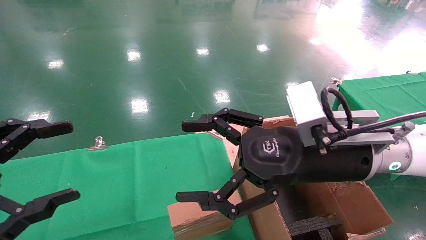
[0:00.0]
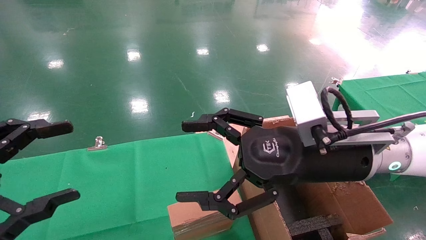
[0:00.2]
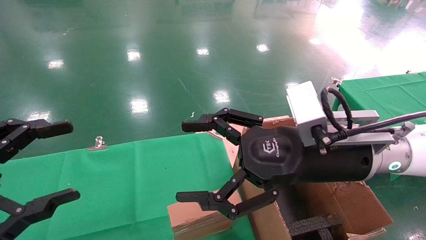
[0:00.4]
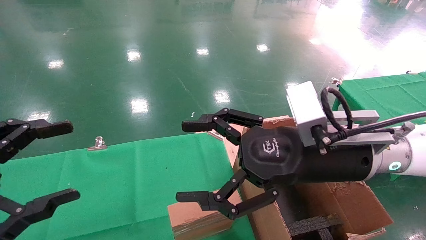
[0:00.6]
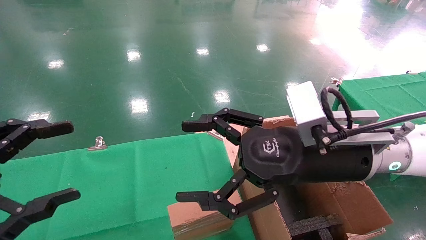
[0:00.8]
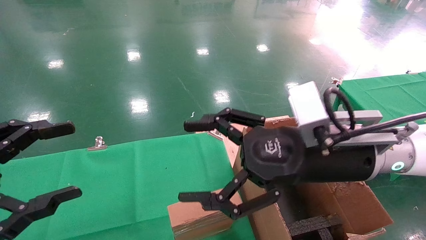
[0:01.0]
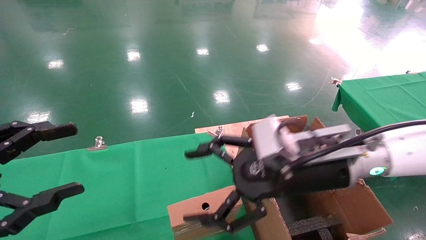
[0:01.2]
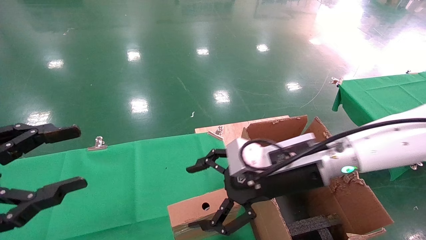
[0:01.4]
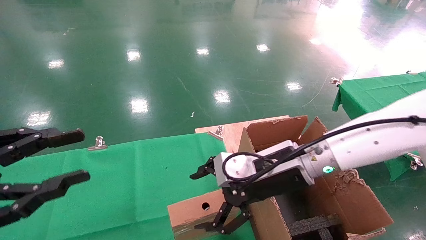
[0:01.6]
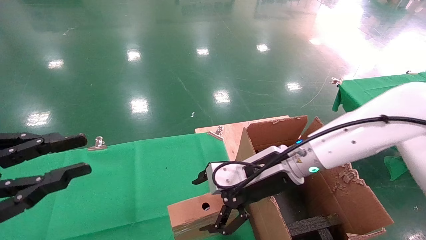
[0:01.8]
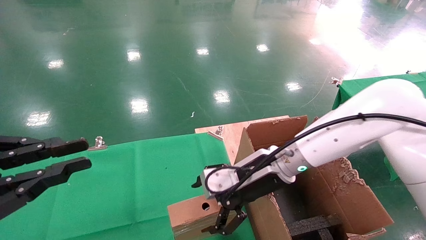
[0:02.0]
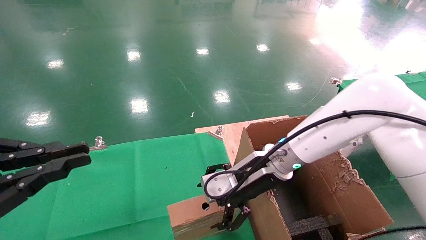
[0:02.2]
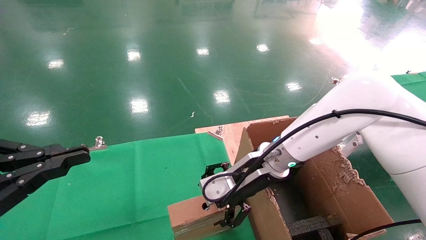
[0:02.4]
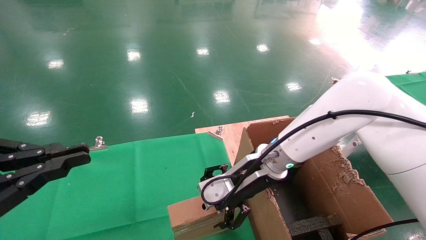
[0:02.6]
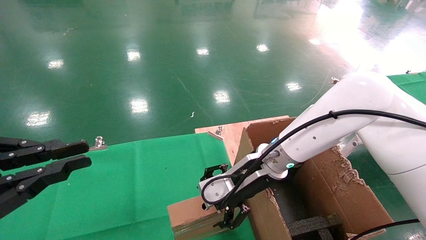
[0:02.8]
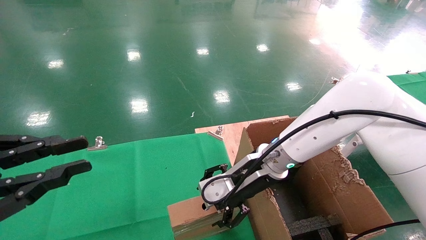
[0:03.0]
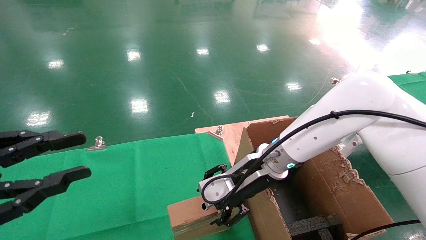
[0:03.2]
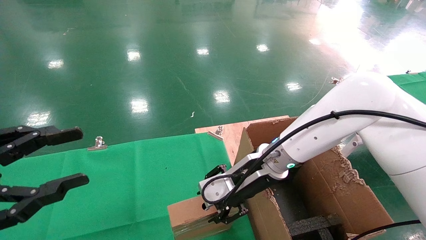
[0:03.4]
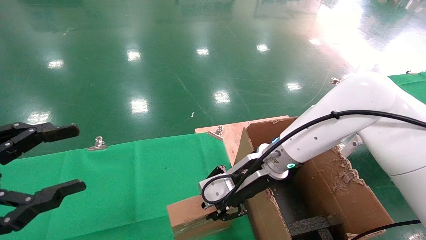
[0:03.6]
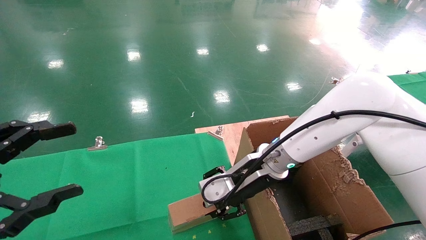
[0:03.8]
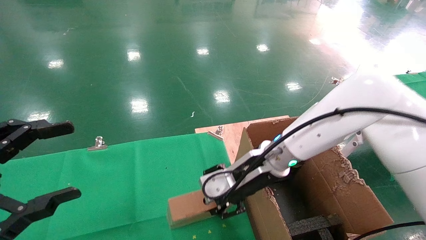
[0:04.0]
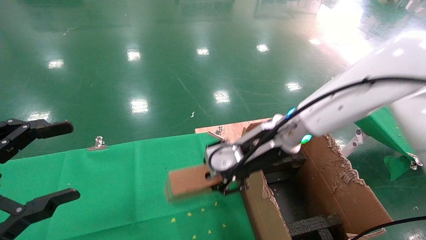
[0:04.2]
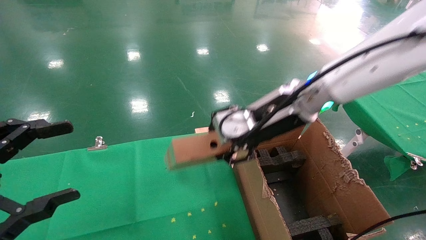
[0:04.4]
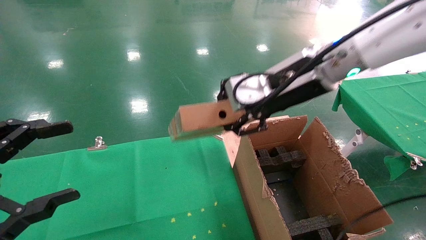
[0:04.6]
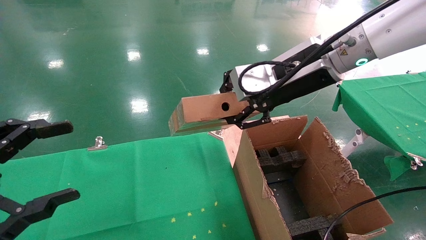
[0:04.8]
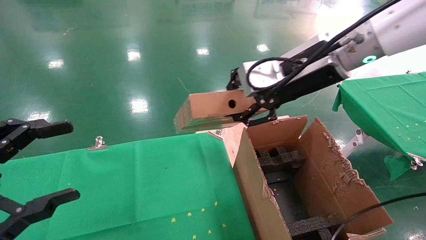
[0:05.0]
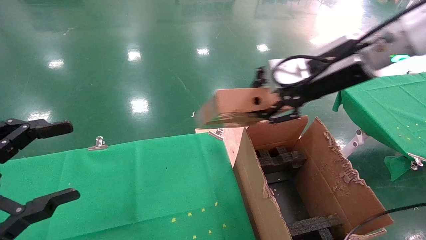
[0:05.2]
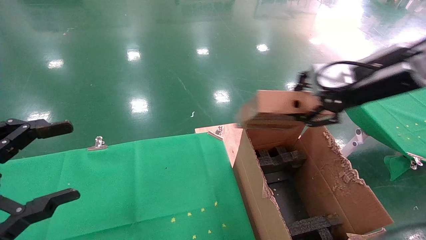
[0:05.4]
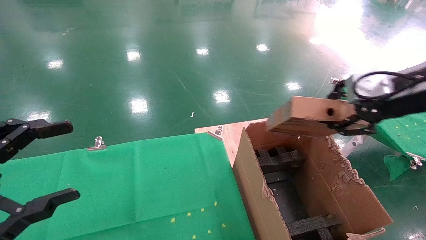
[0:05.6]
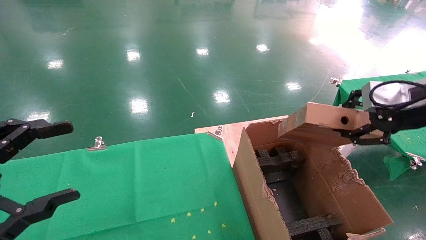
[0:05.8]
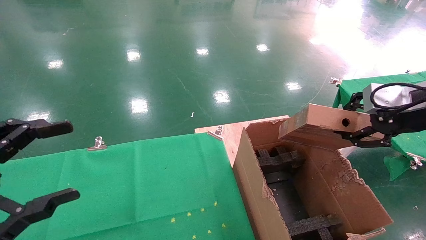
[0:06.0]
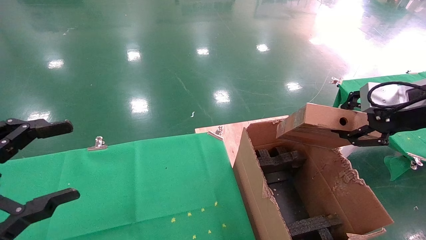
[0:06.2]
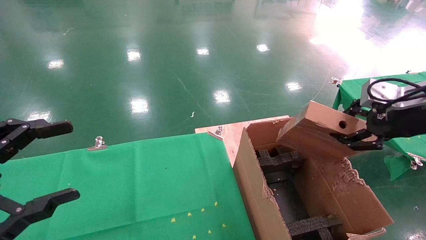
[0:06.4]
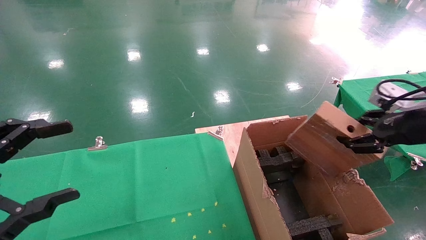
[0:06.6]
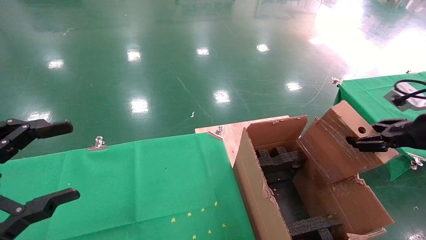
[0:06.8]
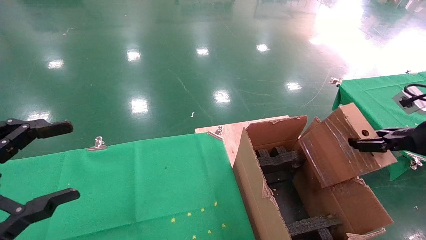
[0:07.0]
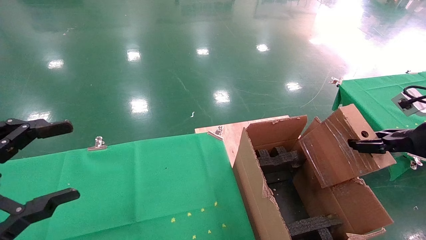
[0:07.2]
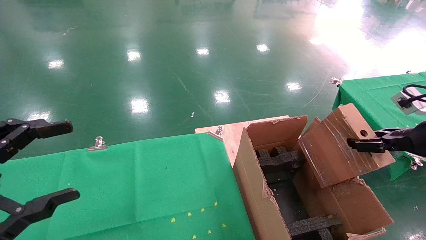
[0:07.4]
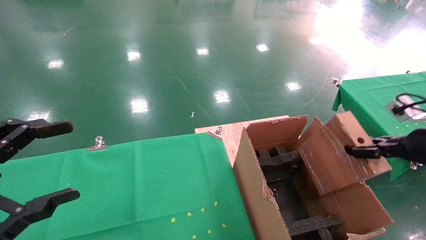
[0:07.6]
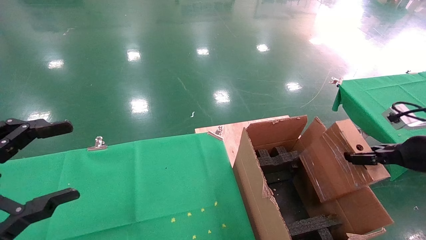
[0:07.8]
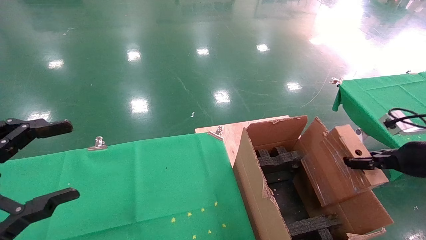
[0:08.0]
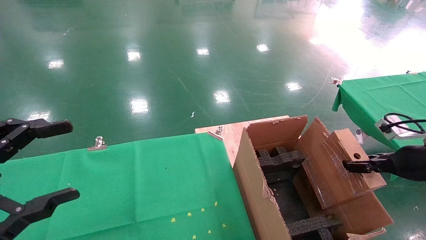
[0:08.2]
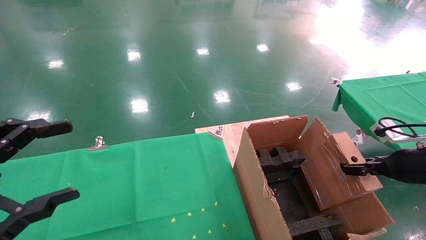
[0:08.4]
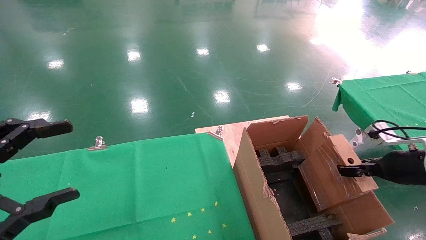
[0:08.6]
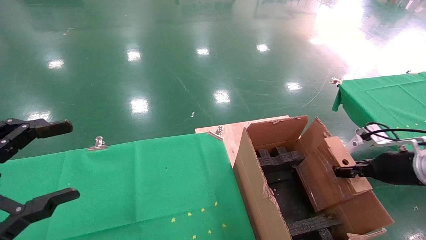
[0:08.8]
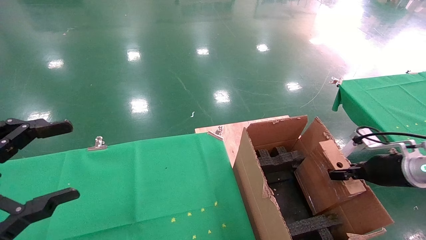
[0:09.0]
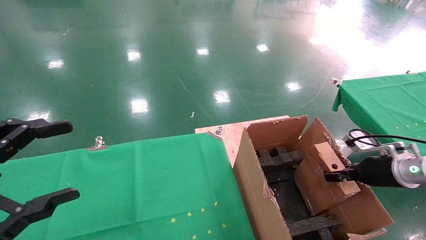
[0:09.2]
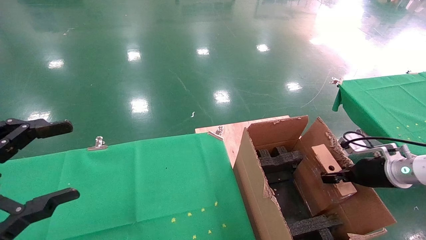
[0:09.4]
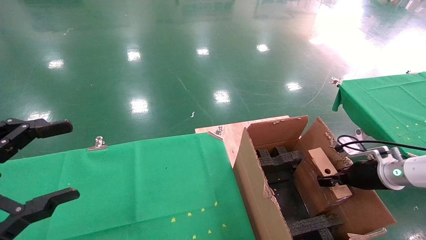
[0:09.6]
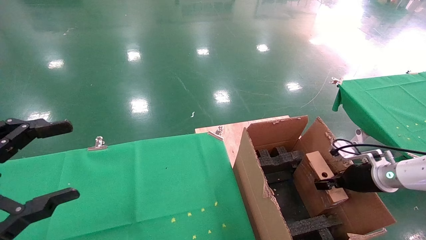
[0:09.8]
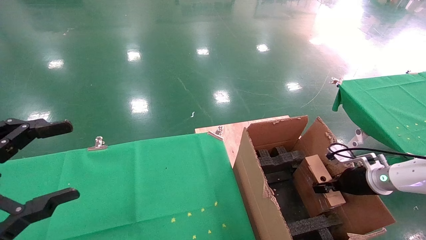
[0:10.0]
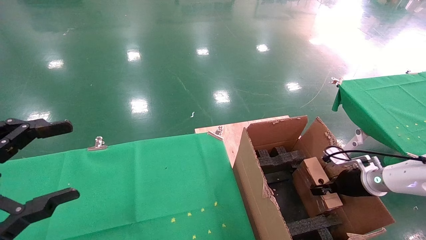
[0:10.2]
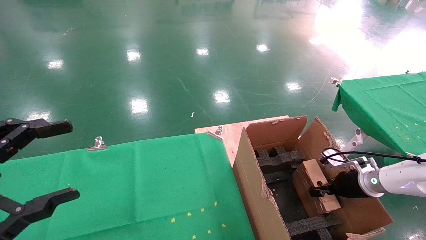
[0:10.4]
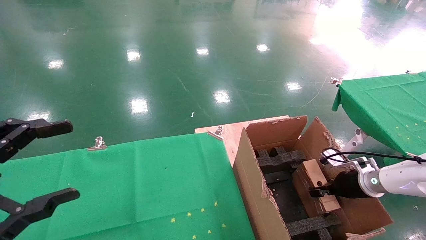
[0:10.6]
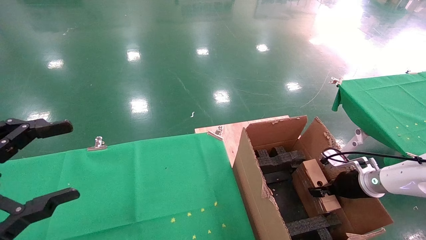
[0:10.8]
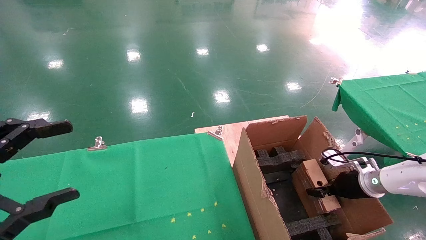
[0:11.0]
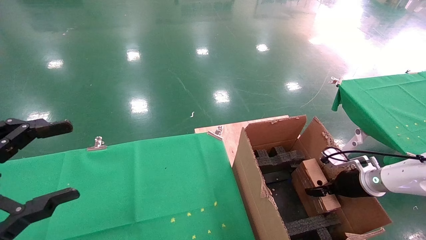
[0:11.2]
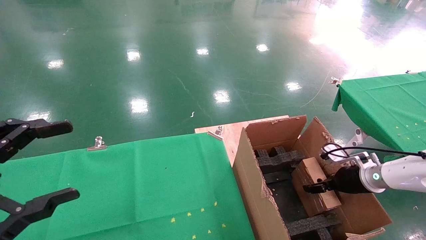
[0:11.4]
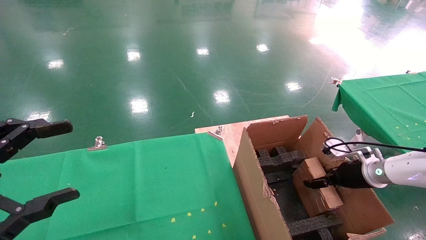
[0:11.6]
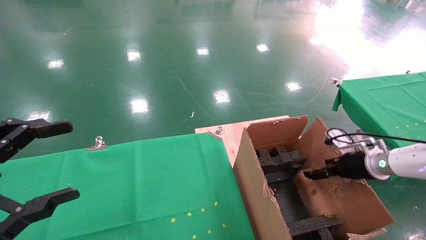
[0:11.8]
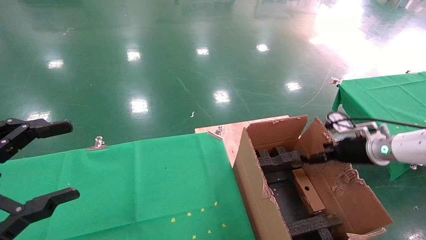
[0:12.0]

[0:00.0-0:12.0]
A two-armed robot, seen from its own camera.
Task of the whole recording: using a robotic arm to pick up a cardboard box and palace it the carton.
Step, 0:01.0 to 0:03.6: Pick up the mouse and the power cord paper box.
0:00.0 to 0:01.6: The right gripper moves forward and downward, some 10 cm, while the left gripper closes.
0:01.6 to 0:03.0: The right gripper ends up roughly 5 cm from where it was, while the left gripper closes.
0:03.0 to 0:04.4: The right gripper shifts some 15 cm upward, and closes up; the left gripper opens its fingers.
0:04.4 to 0:06.0: The right gripper heads to the right, covering about 25 cm.
0:06.0 to 0:07.6: The right gripper goes roughly 10 cm downward and to the right.
0:07.6 to 0:09.0: The right gripper moves downward and forward, roughly 10 cm.
0:09.0 to 0:10.4: The right gripper shifts about 10 cm downward and forward.
0:10.4 to 0:12.0: The right gripper travels upward by some 10 cm, and opens.

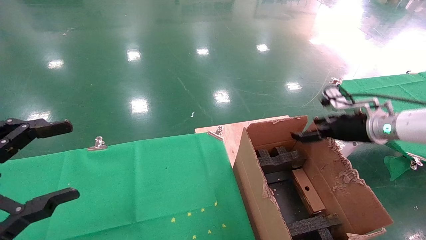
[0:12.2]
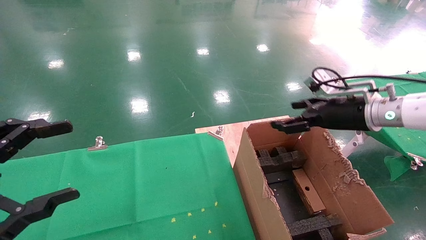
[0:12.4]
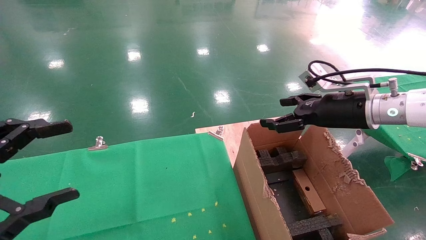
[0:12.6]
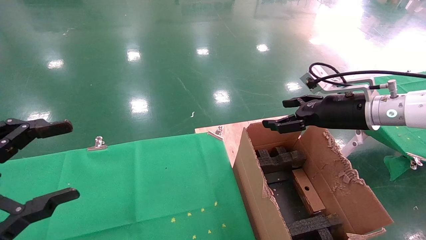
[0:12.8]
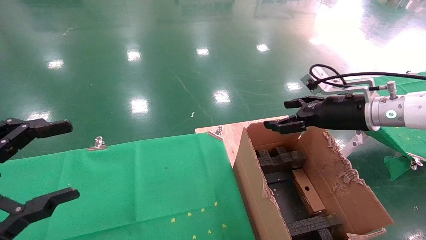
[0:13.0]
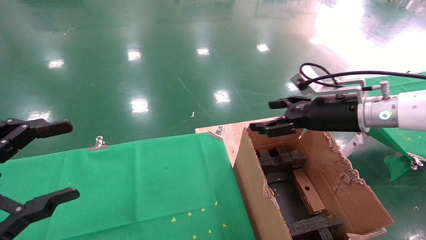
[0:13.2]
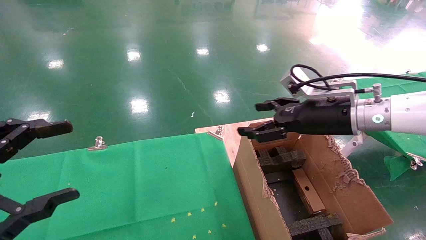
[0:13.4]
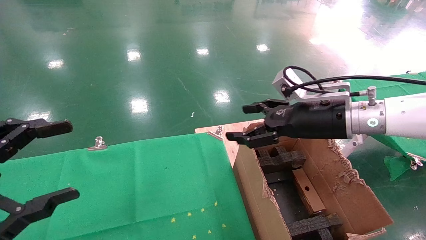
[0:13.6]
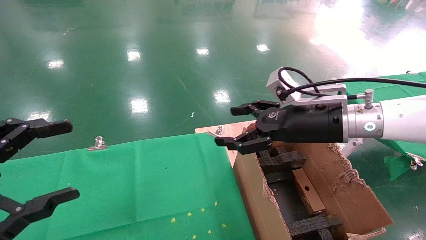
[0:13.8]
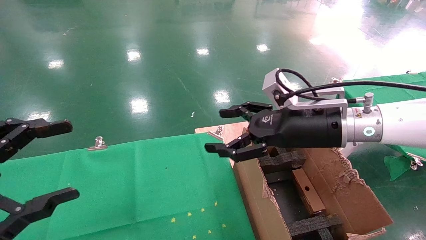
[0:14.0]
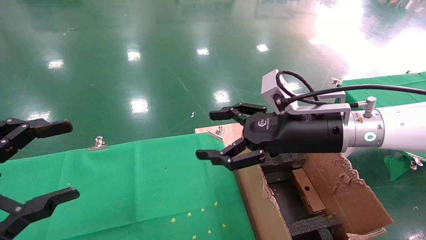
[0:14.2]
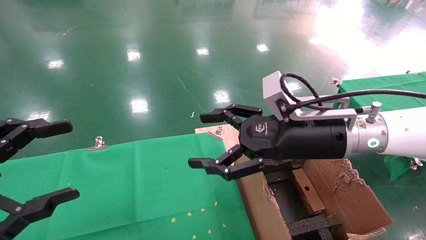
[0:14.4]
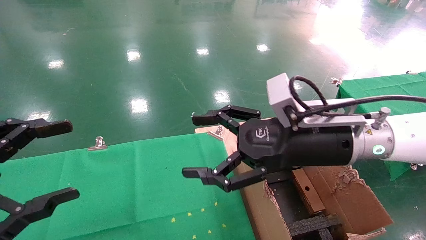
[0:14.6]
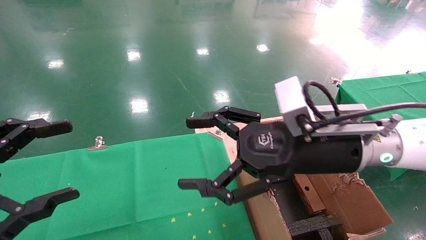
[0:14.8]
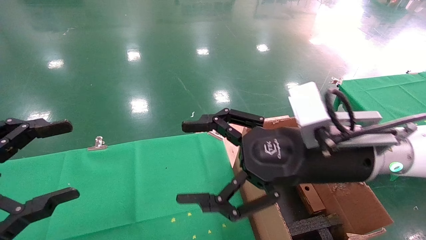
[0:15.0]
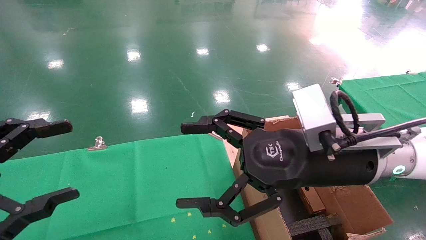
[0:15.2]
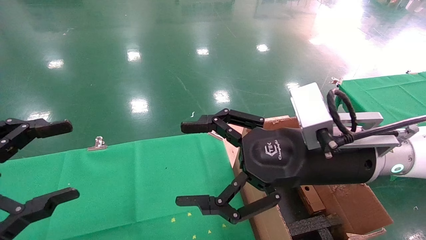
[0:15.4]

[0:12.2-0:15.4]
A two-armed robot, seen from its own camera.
Task of the whole recording: using a robotic arm to pick up a cardboard box and palace it the carton.
0:12.2 to 0:13.8: The right gripper is displaced to the left by roughly 15 cm.
0:13.8 to 0:15.4: The right gripper heads backward and to the left, covering about 10 cm.
